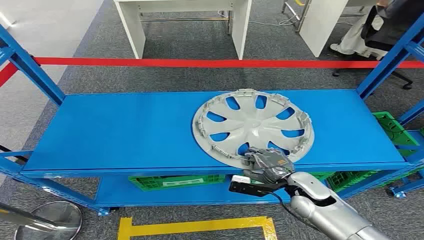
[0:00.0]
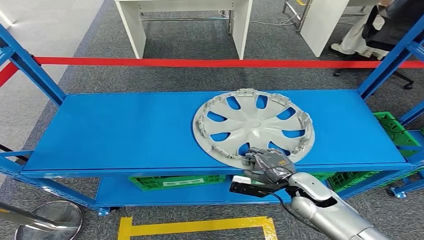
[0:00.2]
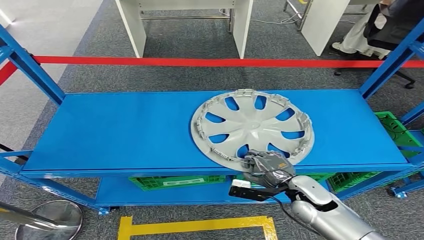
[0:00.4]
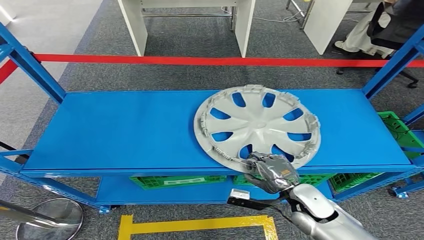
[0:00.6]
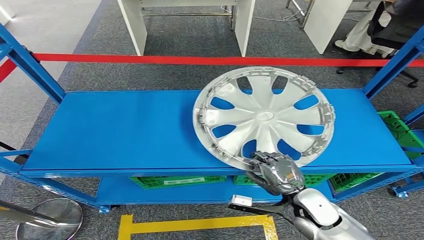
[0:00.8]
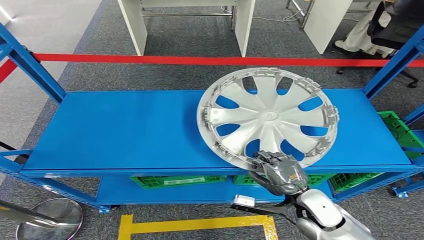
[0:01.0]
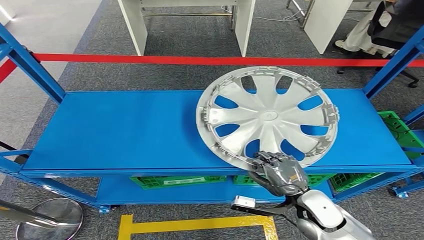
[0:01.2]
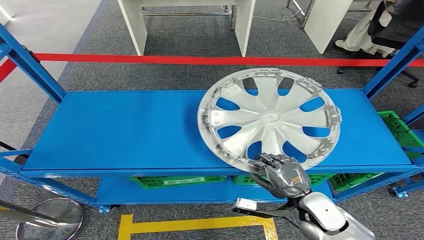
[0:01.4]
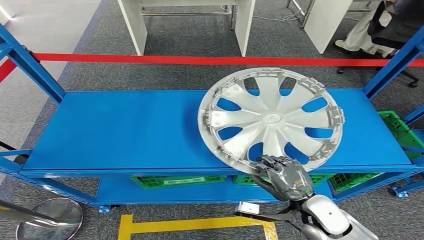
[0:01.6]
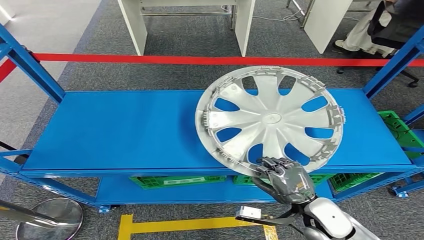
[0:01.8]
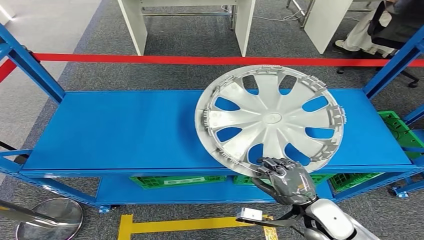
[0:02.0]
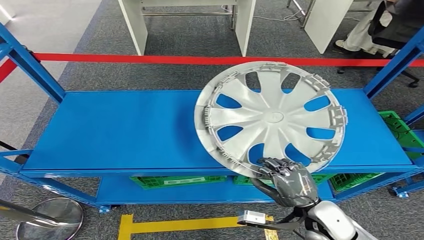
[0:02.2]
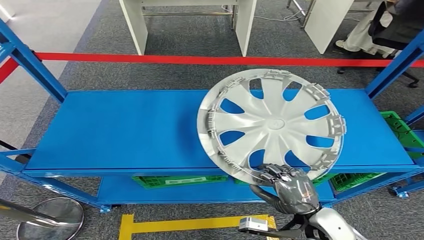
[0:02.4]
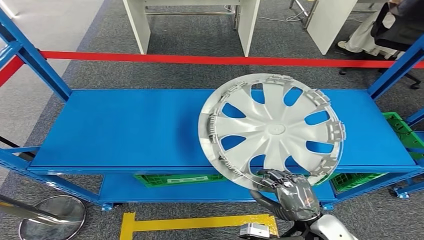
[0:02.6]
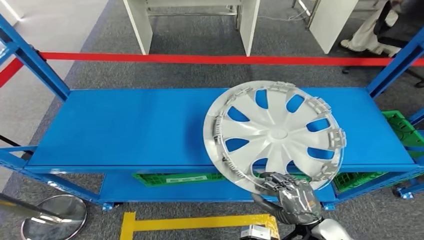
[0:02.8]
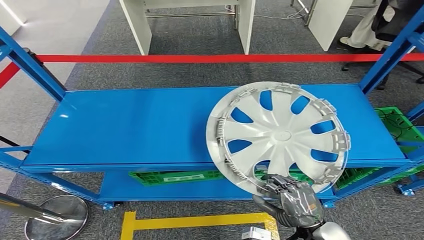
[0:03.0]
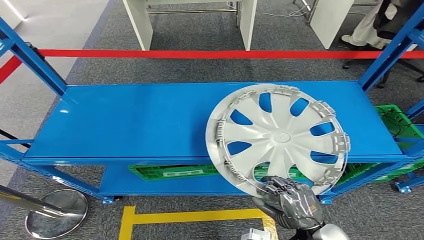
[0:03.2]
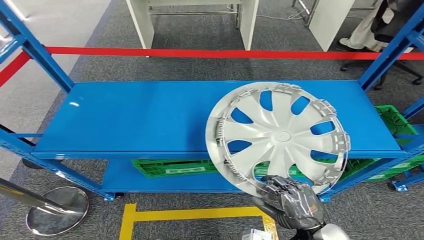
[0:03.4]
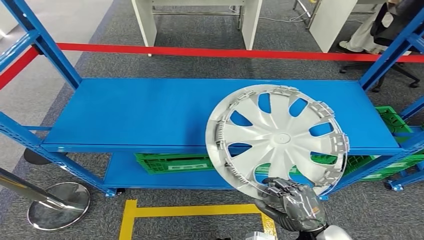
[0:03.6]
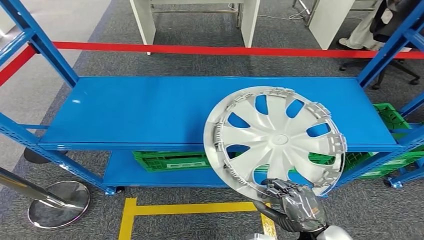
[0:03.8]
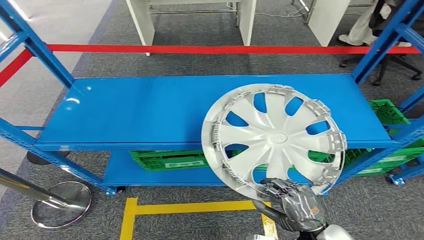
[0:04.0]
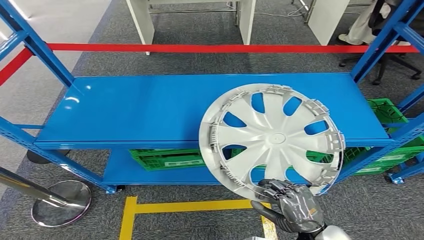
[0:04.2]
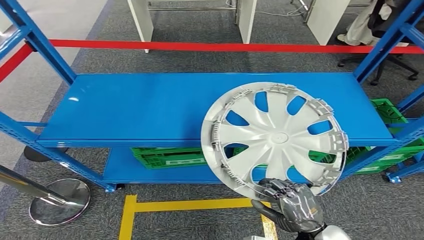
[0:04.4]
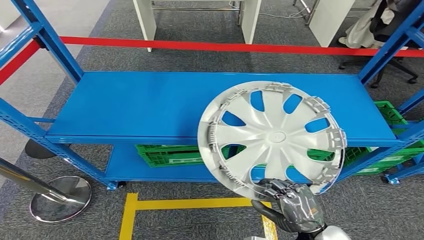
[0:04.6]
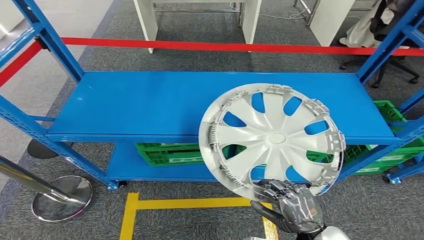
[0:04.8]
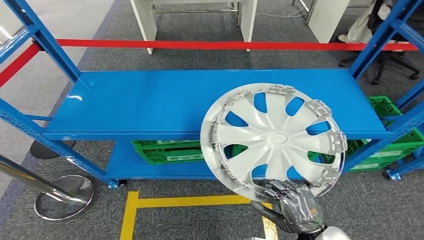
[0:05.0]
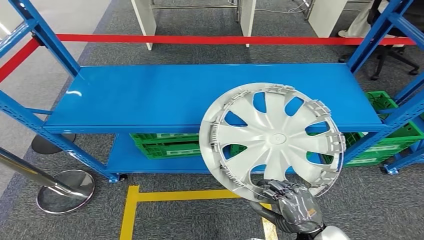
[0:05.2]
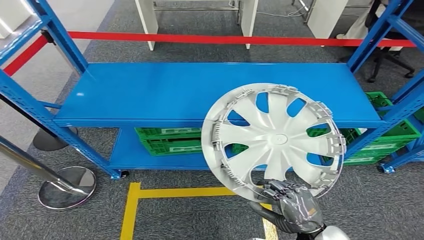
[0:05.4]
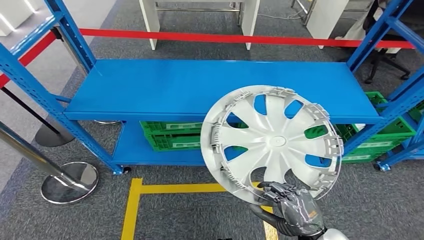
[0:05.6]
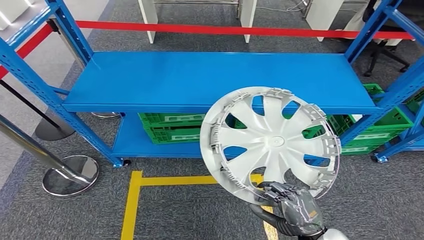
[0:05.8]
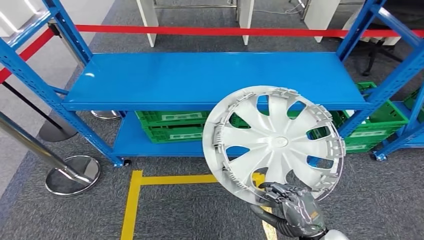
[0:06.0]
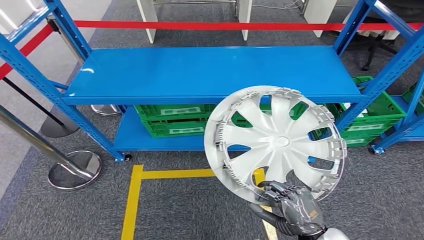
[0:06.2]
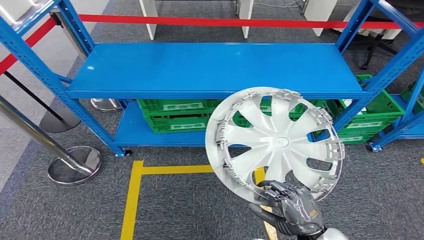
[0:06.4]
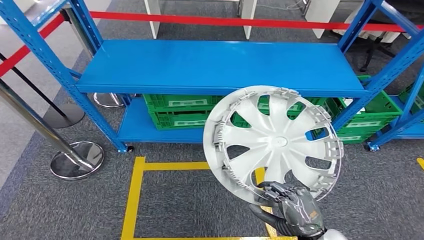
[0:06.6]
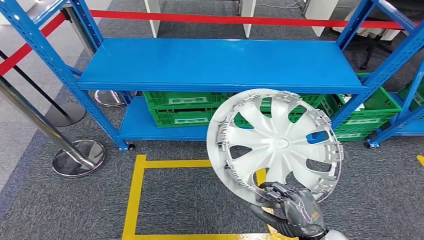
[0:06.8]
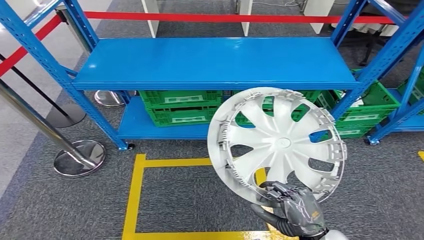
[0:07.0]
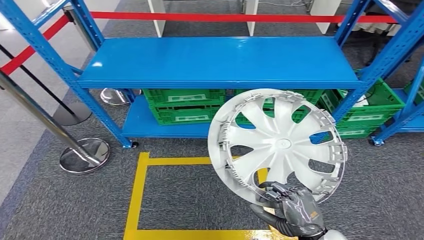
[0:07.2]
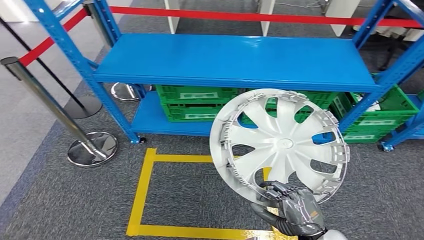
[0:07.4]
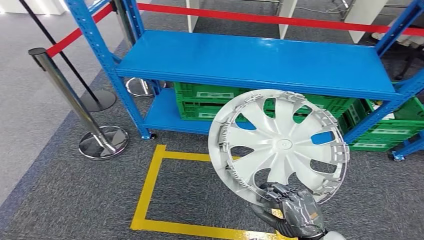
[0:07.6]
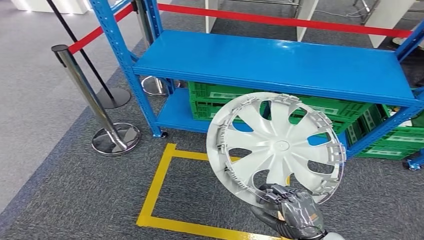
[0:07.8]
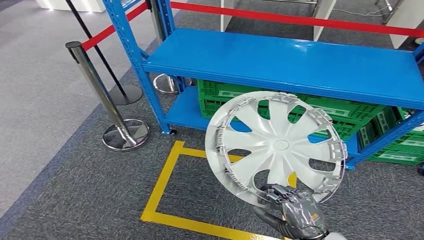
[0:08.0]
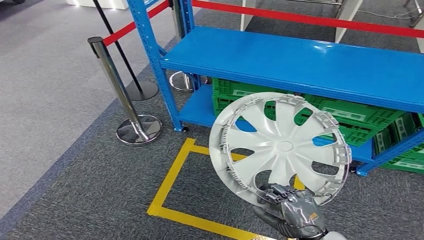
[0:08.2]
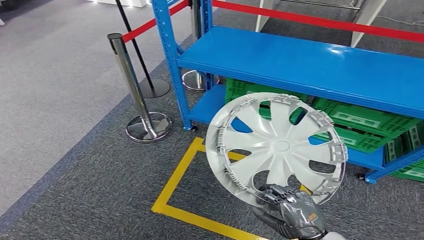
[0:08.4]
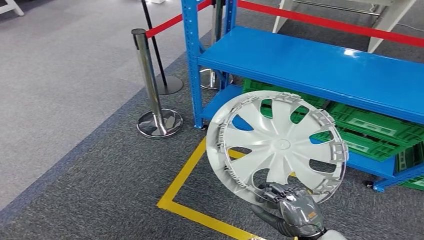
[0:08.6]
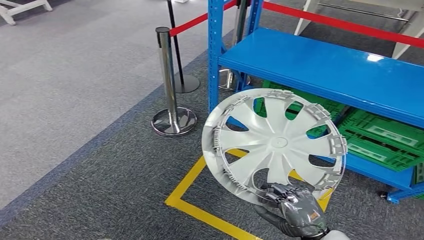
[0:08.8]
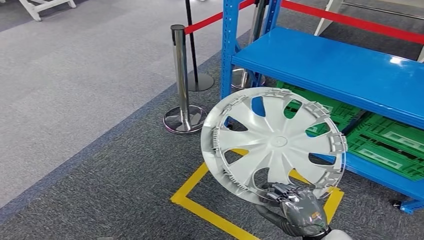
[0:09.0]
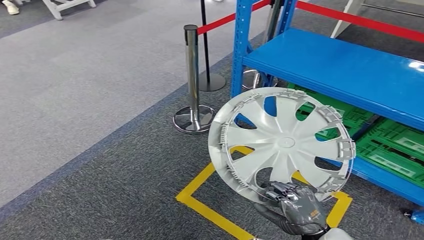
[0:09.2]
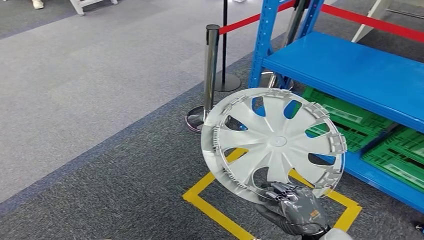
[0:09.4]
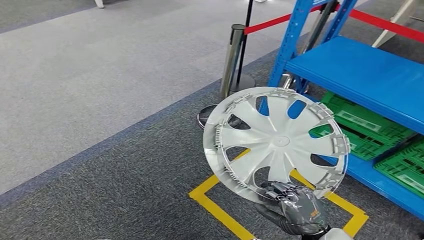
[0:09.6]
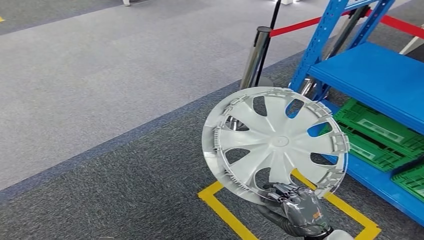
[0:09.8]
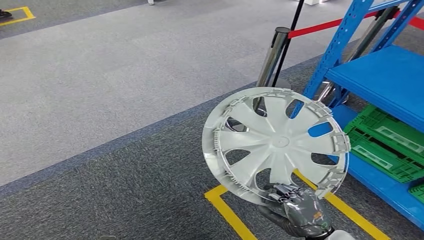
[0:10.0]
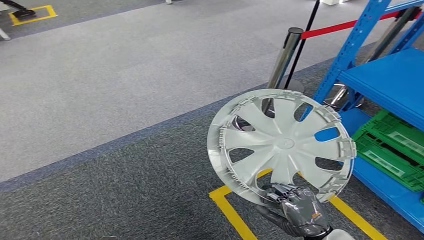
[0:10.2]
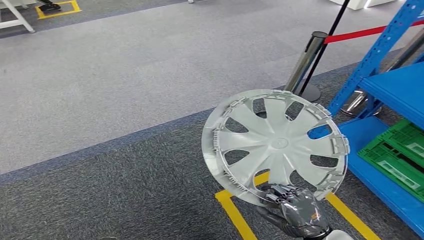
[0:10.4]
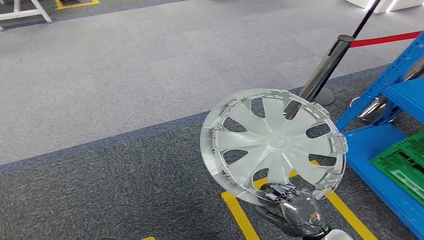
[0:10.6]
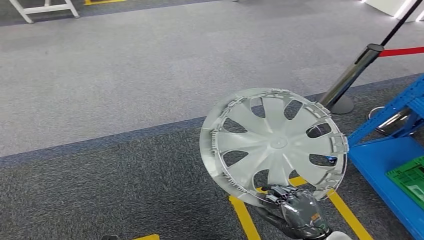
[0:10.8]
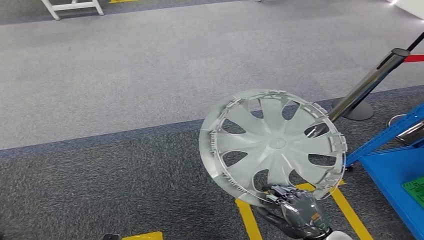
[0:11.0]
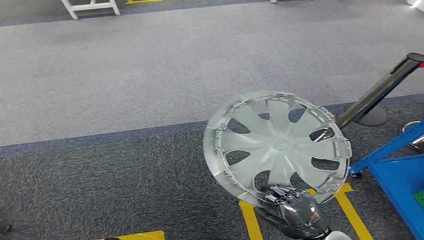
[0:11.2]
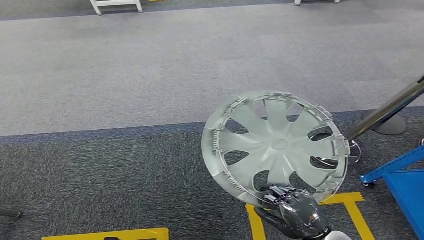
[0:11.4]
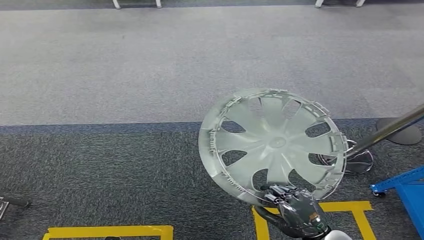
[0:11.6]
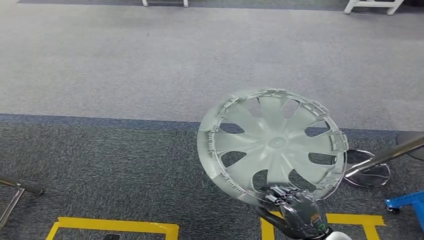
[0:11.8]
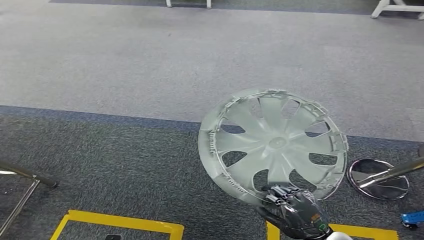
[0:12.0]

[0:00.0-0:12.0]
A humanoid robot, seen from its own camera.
Step, 0:00.0 to 0:03.6: Pick up the small component from the shelf.

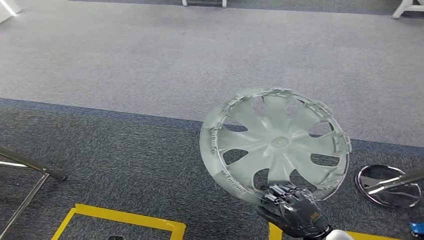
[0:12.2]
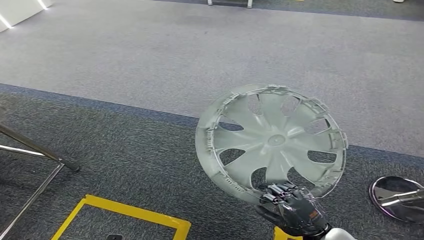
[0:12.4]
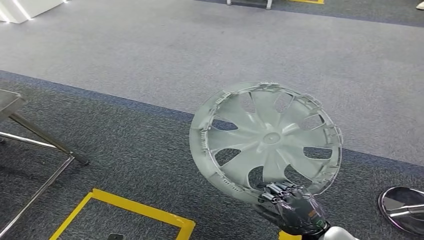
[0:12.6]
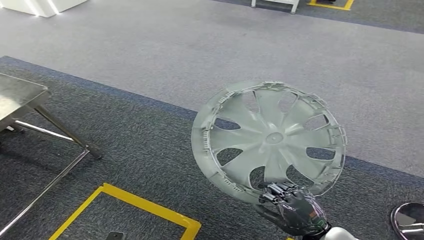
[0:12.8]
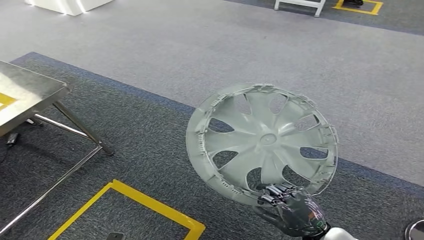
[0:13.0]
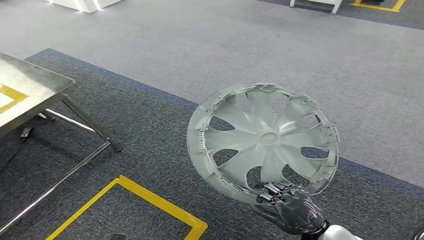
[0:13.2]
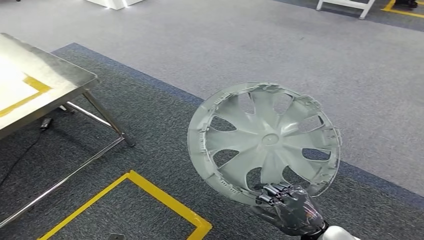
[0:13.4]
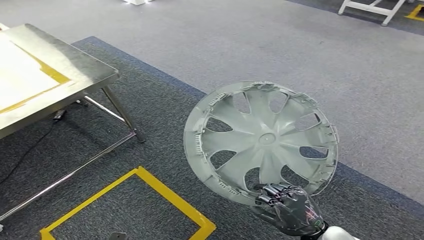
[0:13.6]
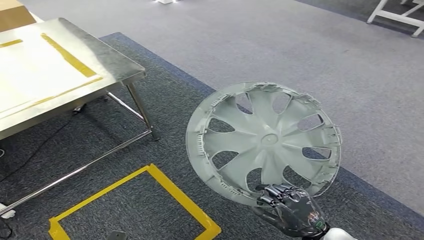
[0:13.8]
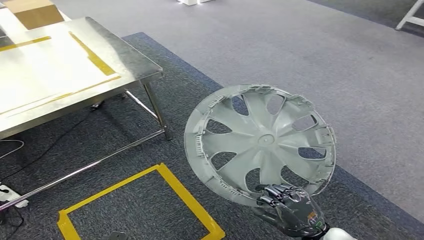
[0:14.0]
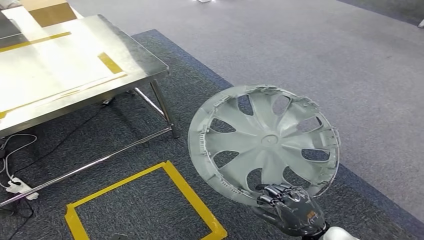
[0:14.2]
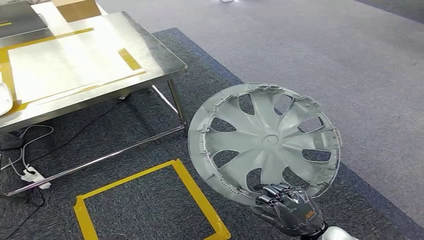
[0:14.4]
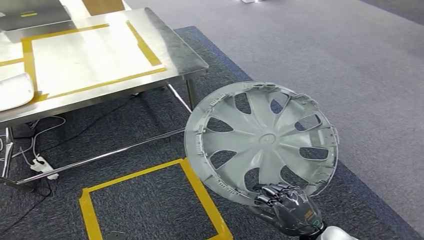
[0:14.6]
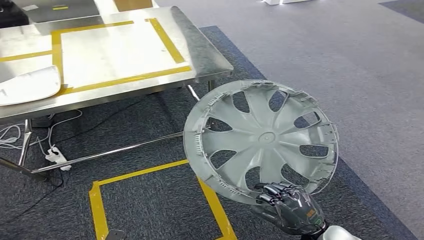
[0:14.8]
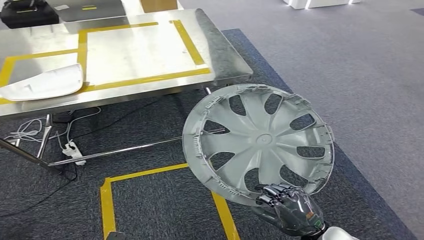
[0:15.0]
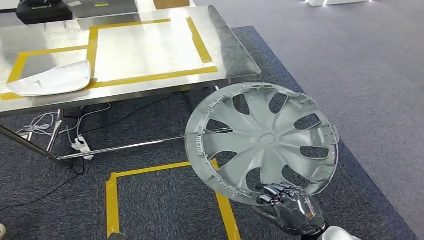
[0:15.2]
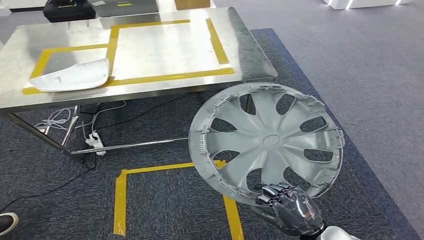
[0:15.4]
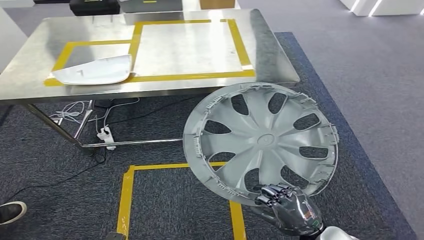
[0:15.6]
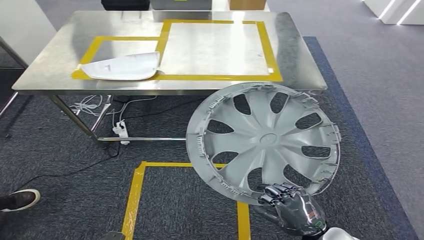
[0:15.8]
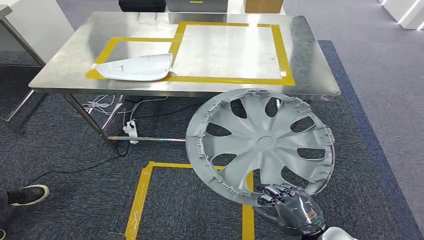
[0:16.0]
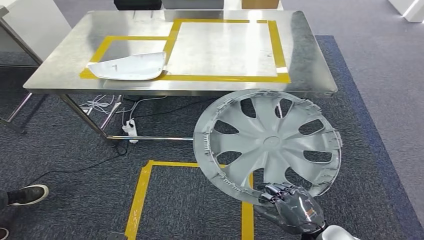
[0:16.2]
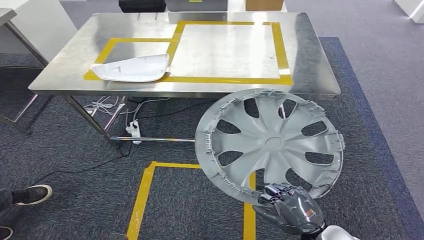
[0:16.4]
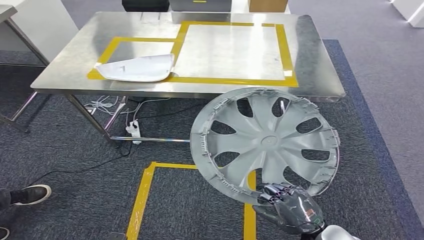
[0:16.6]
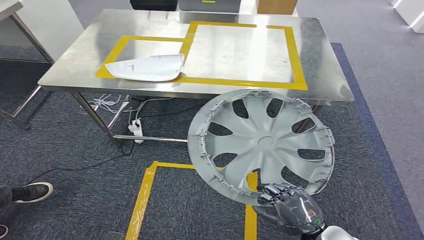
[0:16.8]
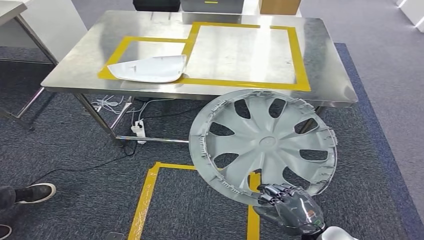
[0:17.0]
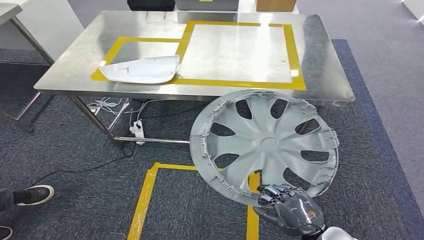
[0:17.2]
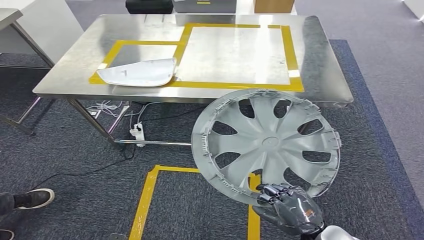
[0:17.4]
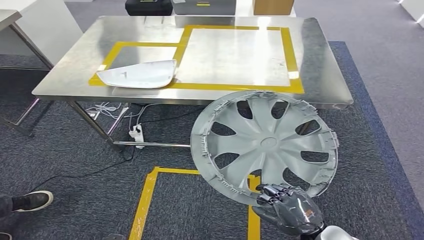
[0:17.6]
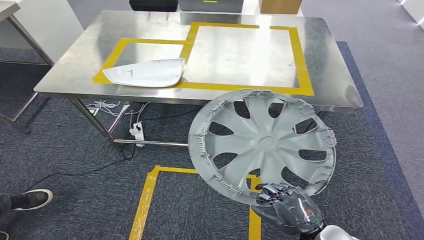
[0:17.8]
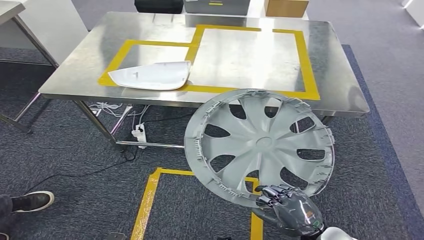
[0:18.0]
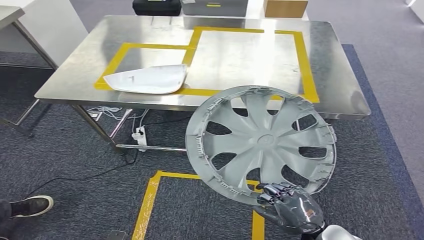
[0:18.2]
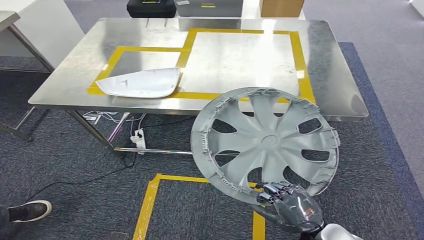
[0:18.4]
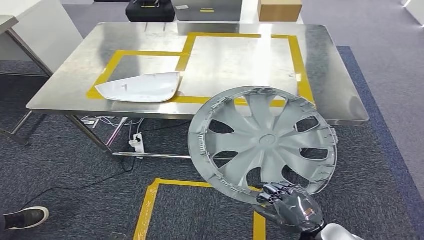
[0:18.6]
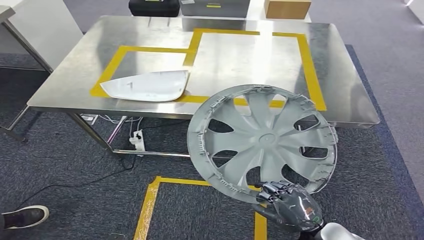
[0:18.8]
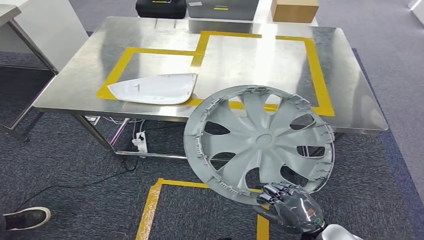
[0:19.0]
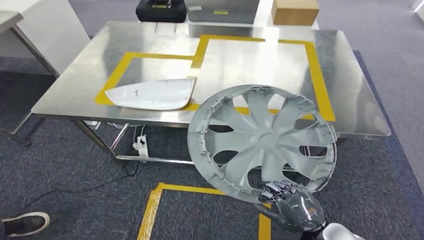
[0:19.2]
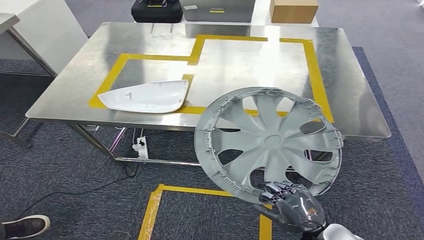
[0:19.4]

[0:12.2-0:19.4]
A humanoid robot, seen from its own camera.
Step, 0:12.2 to 0:18.8: Move the small component to the workbench.
